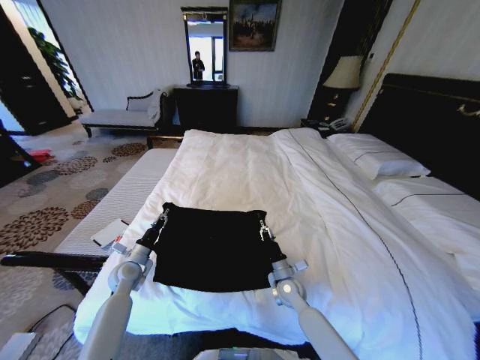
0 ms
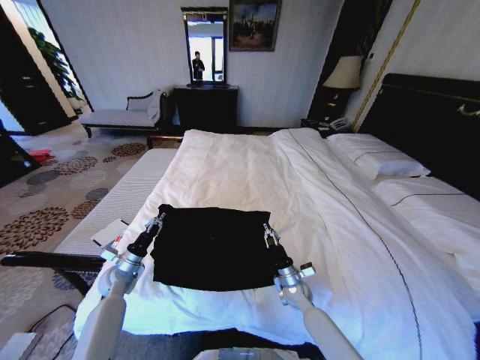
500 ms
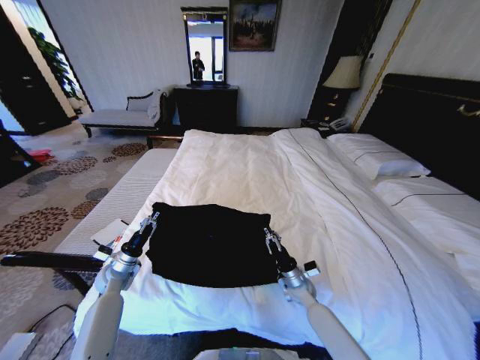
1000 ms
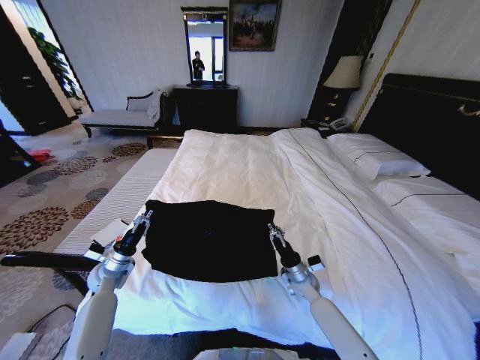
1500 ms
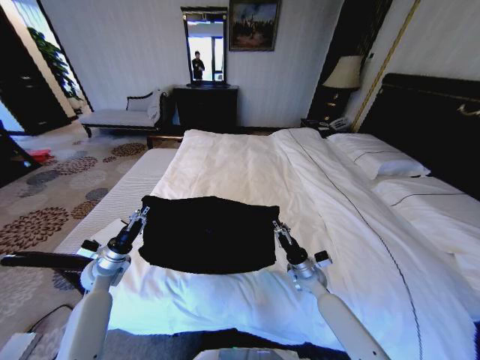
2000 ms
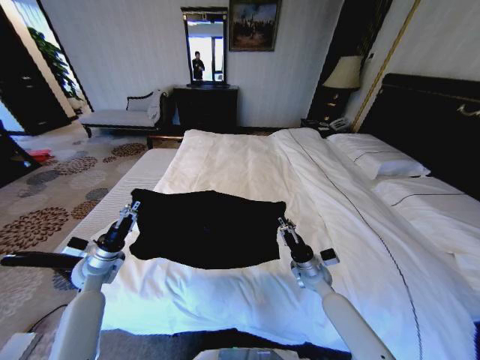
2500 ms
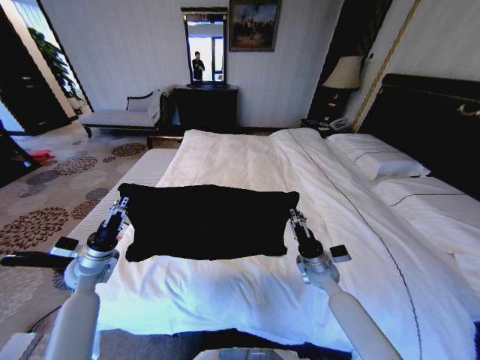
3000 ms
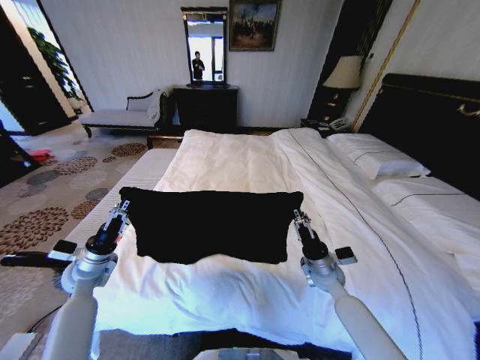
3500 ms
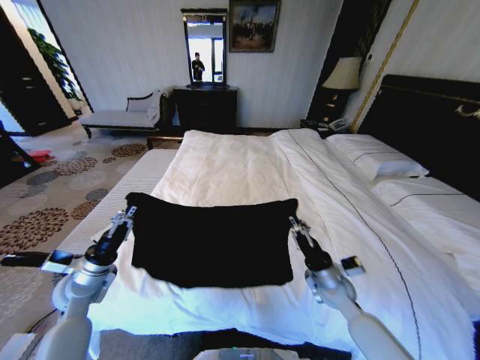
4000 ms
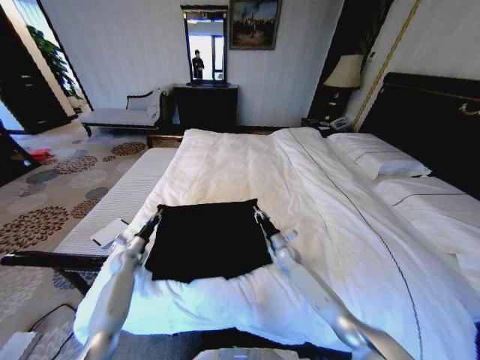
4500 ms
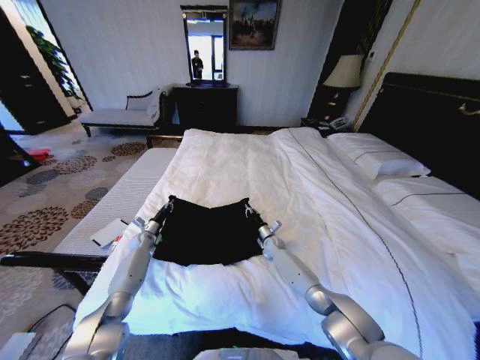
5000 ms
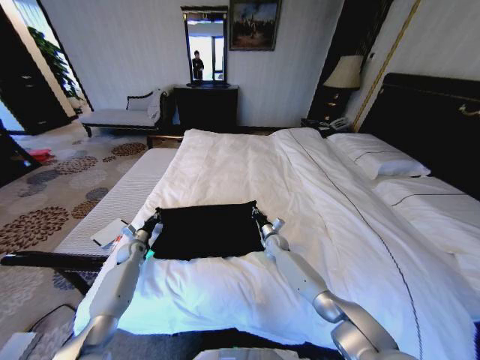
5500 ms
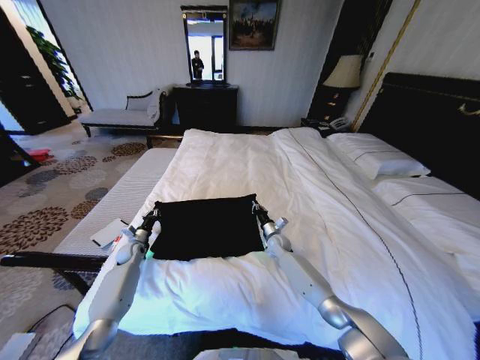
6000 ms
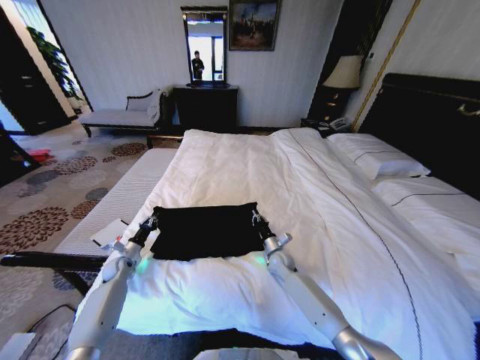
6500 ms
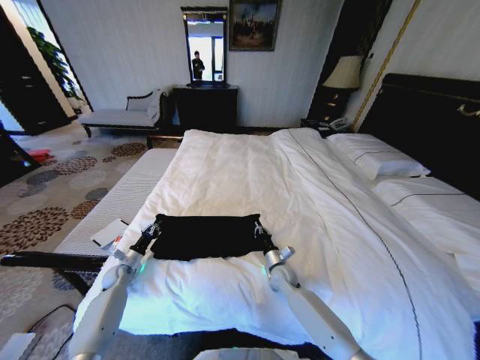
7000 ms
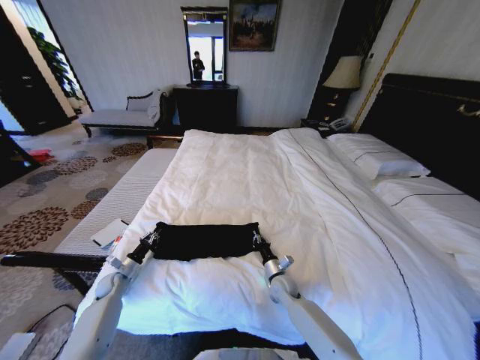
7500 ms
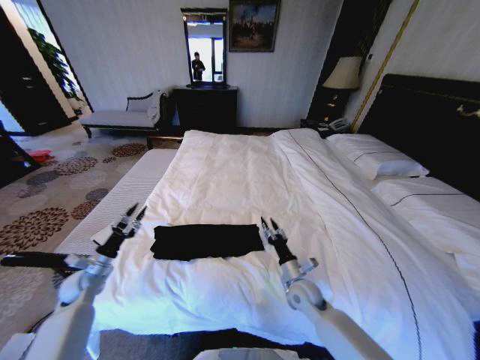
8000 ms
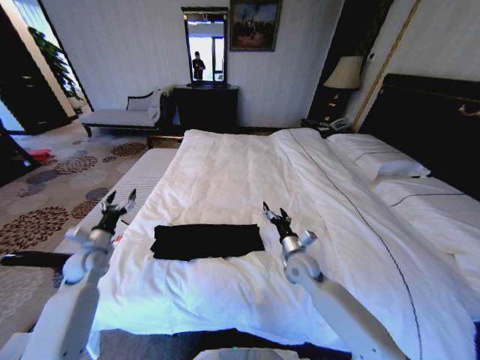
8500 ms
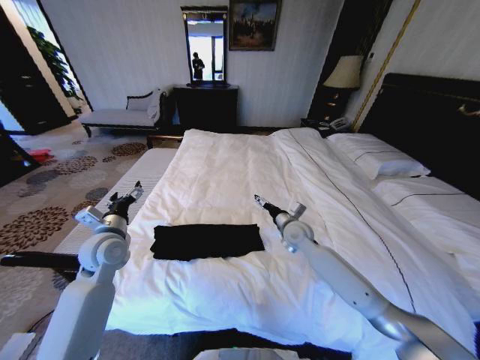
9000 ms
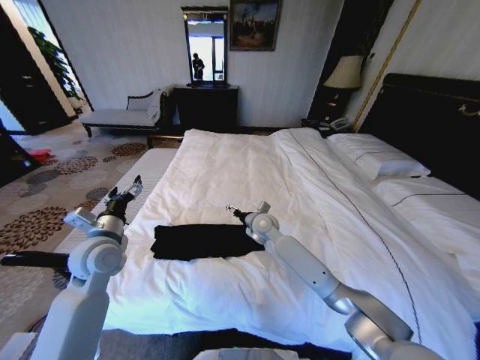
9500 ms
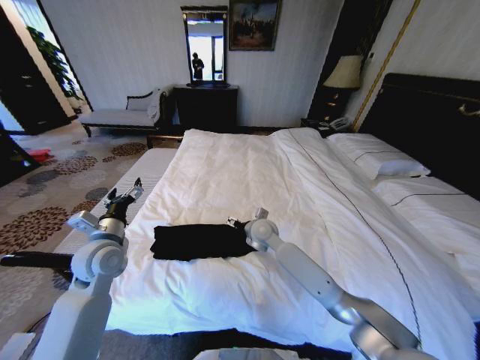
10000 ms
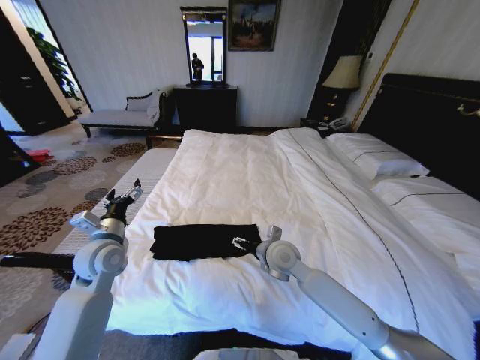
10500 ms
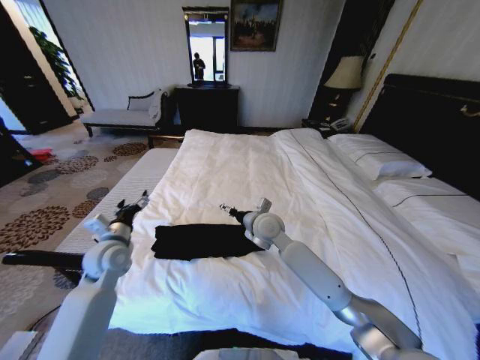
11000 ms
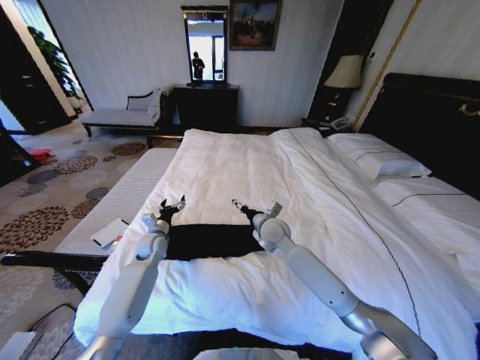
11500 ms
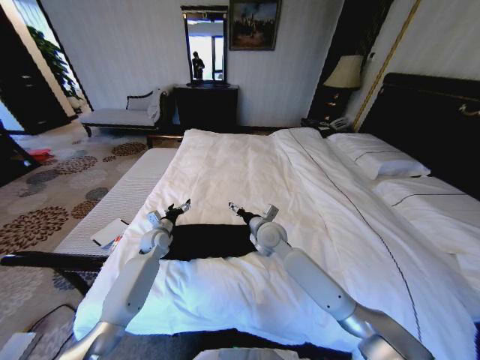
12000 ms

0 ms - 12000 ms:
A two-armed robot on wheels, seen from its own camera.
Task of the whole recording: Fold the clothes on the bed.
0 ms - 2000 ms: The left gripper heads to the left, covering about 5 cm. Meanwhile the right gripper moves to the right, some 10 cm.
2000 ms - 4000 ms: The left gripper travels backward and upward by some 10 cm; the right gripper heads upward and backward, covering about 10 cm.
4000 ms - 6000 ms: The grippers both shift forward and downward by some 25 cm.
6000 ms - 8000 ms: The left gripper moves backward, upward and to the left, approximately 15 cm; the right gripper moves backward, approximately 20 cm, and opens its fingers.
8000 ms - 10000 ms: The left gripper is displaced upward and to the right by about 25 cm, and opens its fingers. Meanwhile the right gripper heads forward, upward and to the left, covering some 25 cm, and opens up.
10000 ms - 12000 ms: The right gripper travels backward and back again, some 10 cm each way. The left gripper moves downward and forward, some 20 cm.

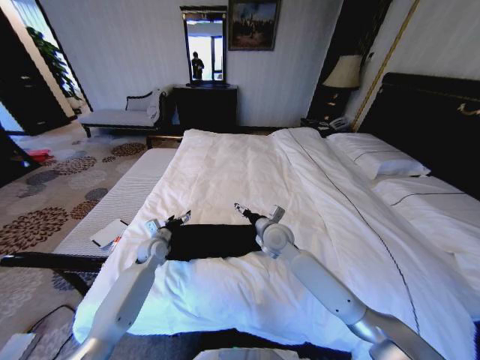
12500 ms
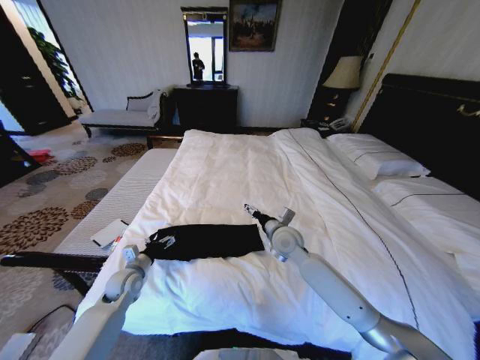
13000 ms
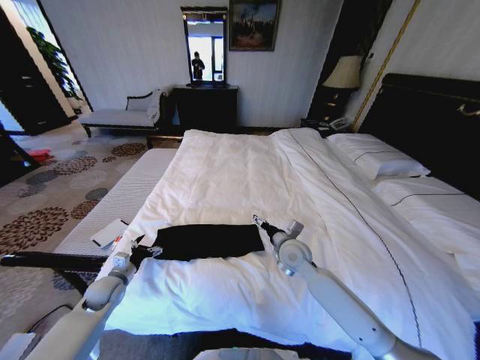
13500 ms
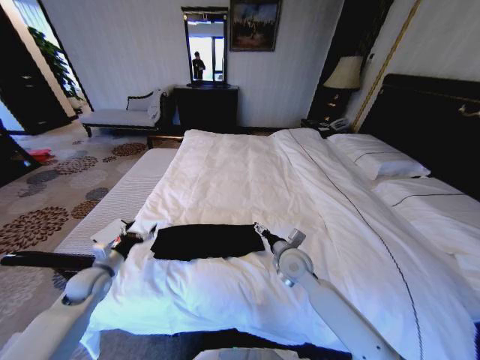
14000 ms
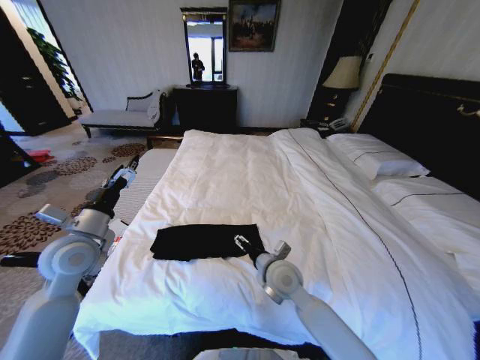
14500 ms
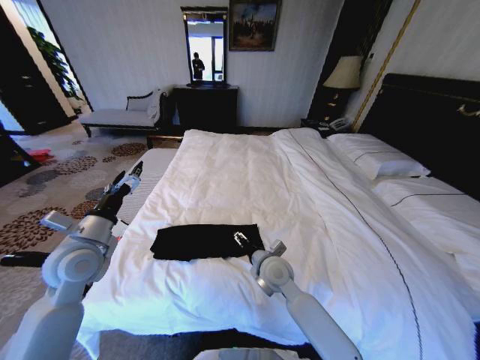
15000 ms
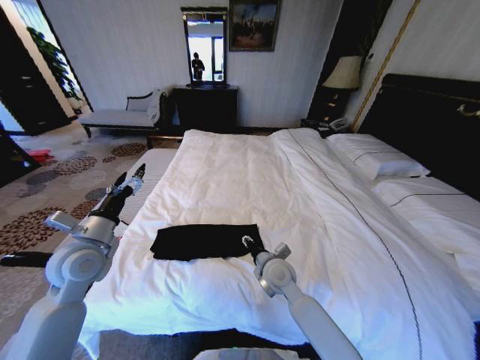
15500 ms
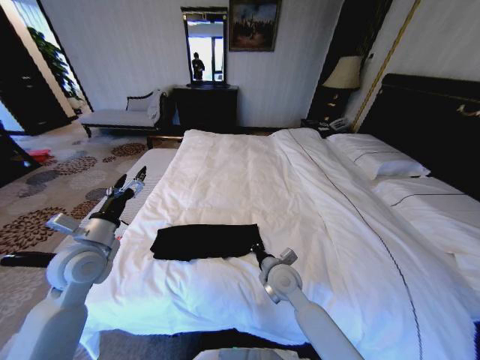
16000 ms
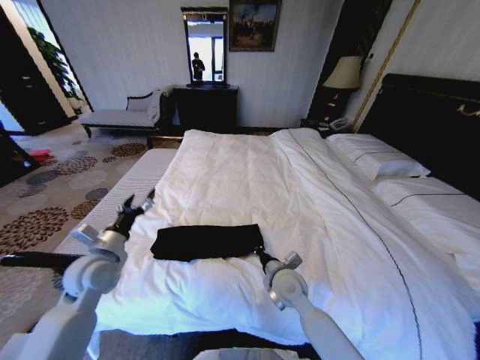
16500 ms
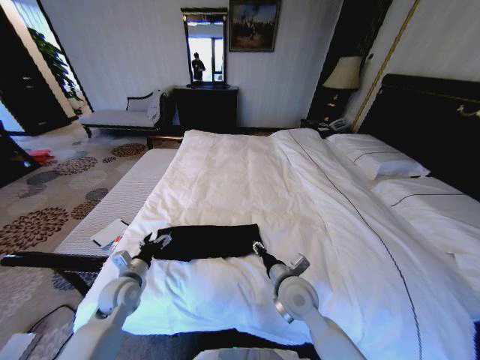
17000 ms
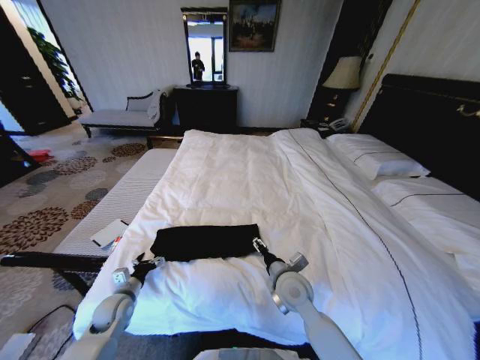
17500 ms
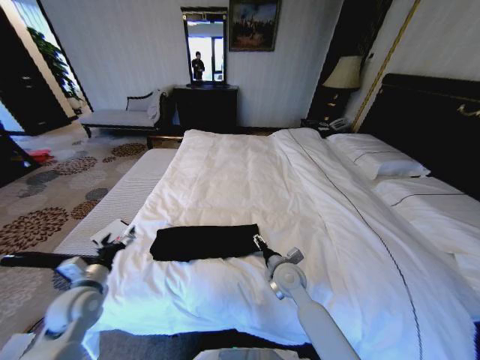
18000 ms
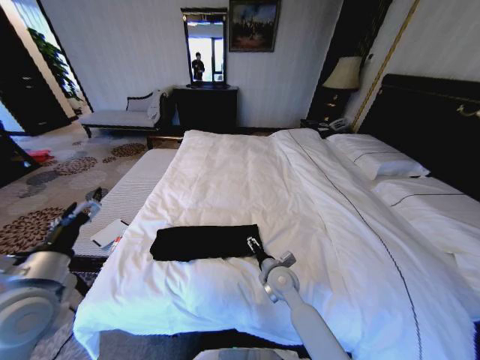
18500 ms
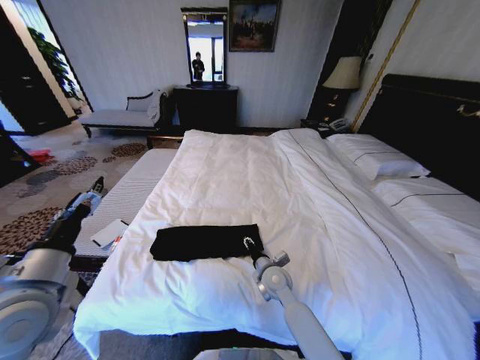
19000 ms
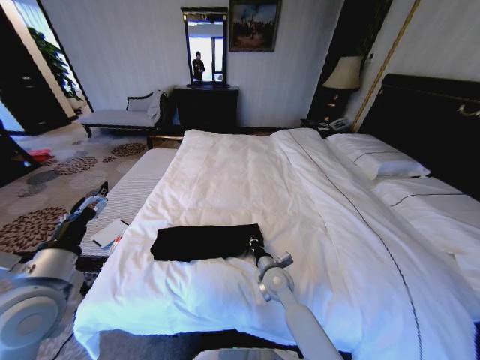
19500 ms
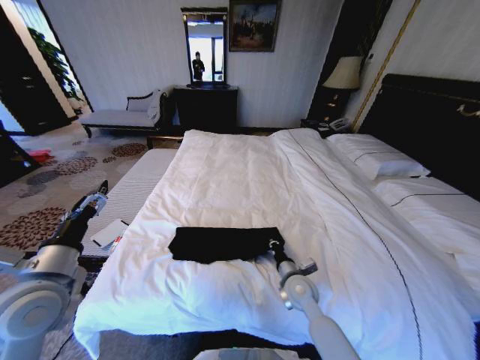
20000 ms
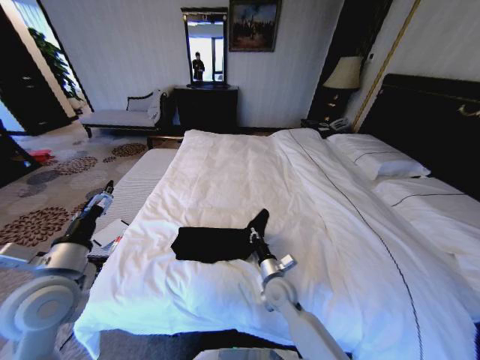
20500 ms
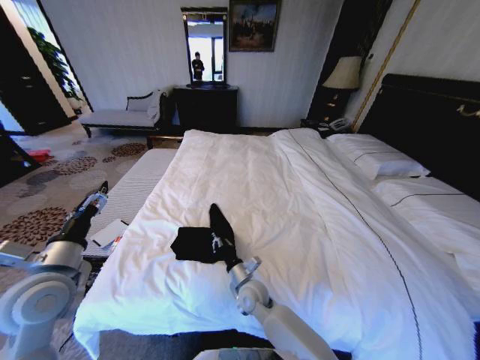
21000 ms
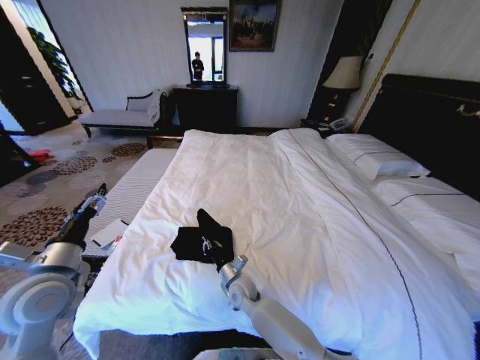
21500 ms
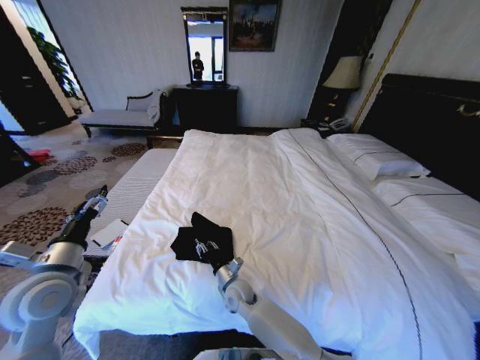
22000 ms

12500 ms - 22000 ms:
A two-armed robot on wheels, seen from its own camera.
Task of the whole recording: Fold the clothes on the bed.
12500 ms - 14500 ms: The right gripper heads backward, covering approximately 10 cm. The left gripper goes some 25 cm upward and backward.
14500 ms - 16500 ms: The left gripper travels downward by approximately 5 cm, while the right gripper closes its fingers.
16500 ms - 18000 ms: The right gripper opens its fingers, while the left gripper heads downward and backward, covering about 10 cm.
18000 ms - 20000 ms: The left gripper moves upward, approximately 15 cm. The right gripper ends up roughly 5 cm from where it was, and closes.
20000 ms - 22000 ms: The right gripper heads to the left and downward, covering about 20 cm.

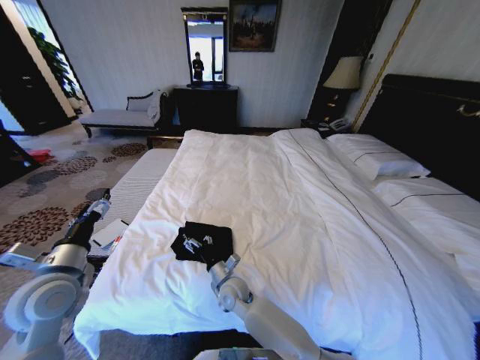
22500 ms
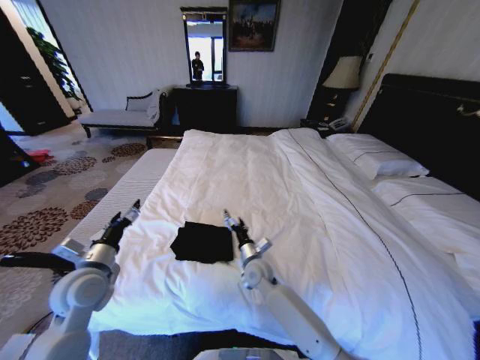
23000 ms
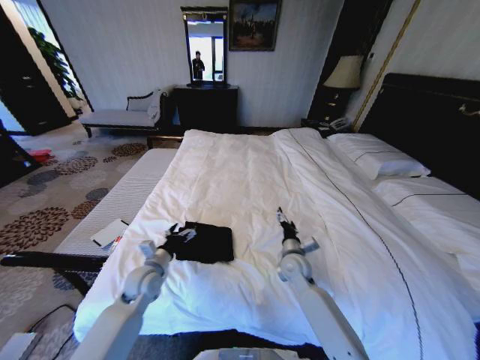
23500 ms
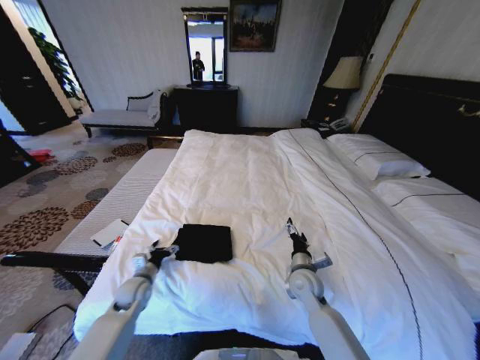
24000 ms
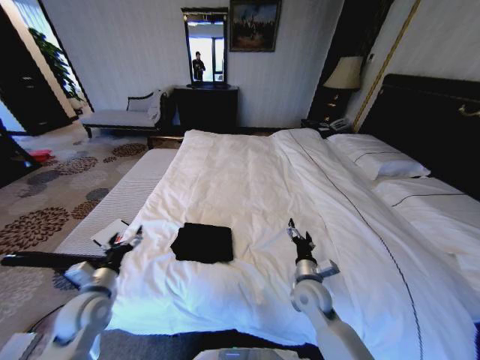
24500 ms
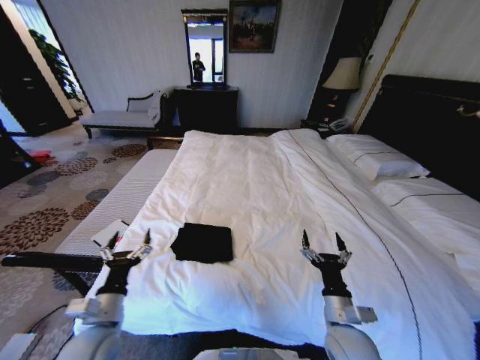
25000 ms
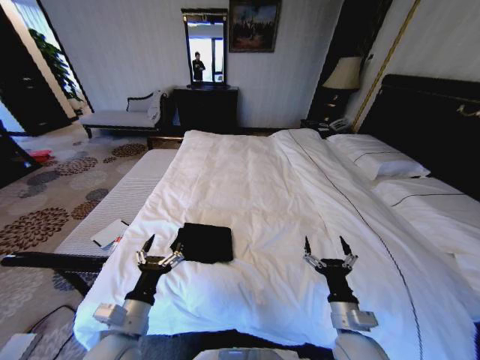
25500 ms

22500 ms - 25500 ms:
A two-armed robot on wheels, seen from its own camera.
Task of the whole recording: Fold the clothes on the bed.
22500 ms - 24000 ms: The left gripper goes approximately 20 cm downward. The right gripper heads to the right, covering roughly 20 cm.
24000 ms - 25500 ms: The left gripper shifts approximately 20 cm backward, upward and to the right. The right gripper goes about 15 cm backward.
